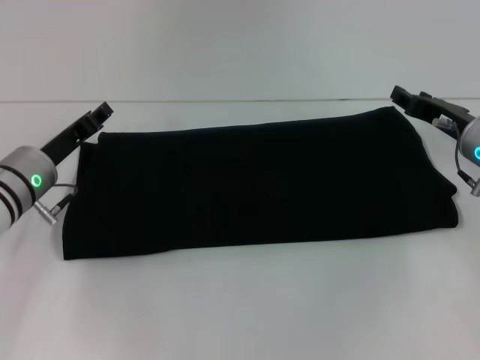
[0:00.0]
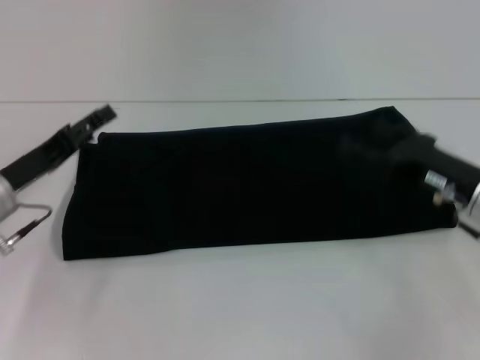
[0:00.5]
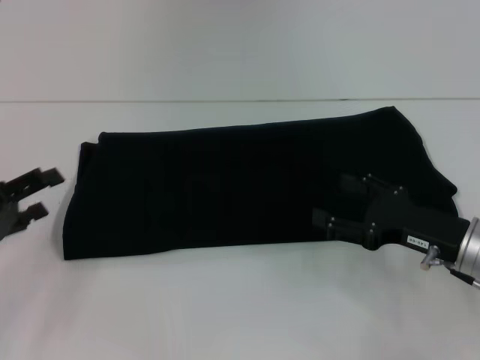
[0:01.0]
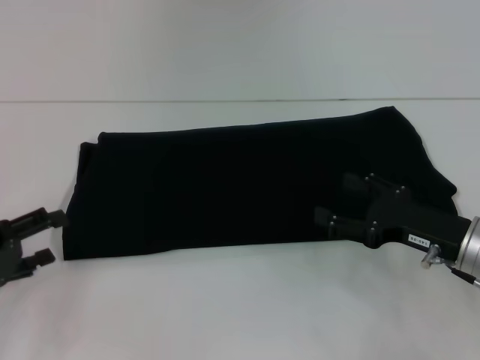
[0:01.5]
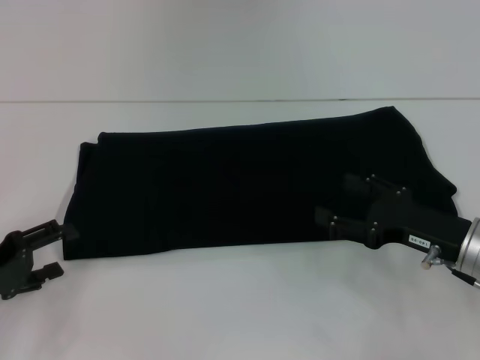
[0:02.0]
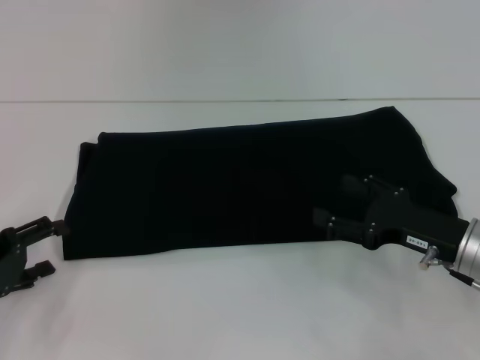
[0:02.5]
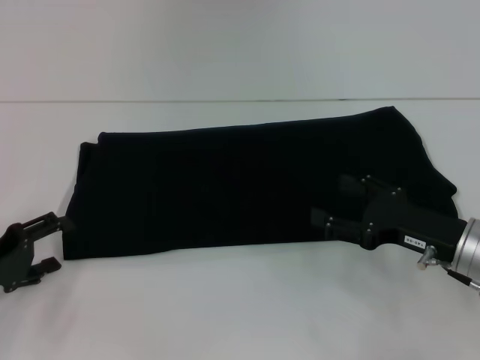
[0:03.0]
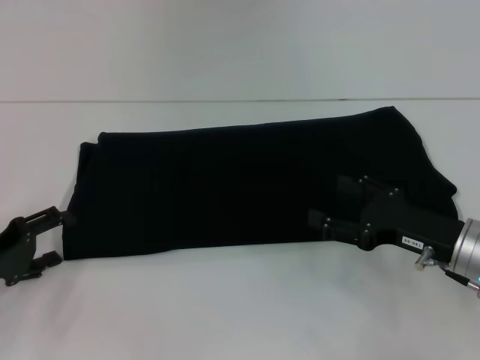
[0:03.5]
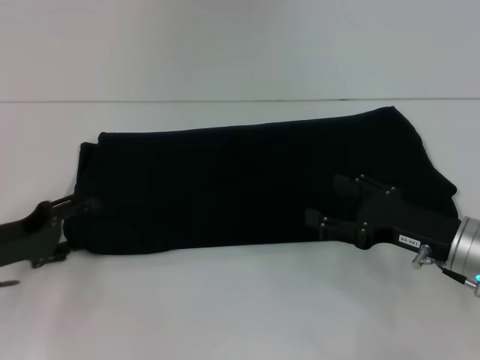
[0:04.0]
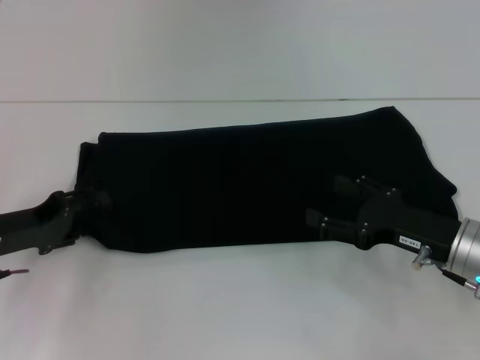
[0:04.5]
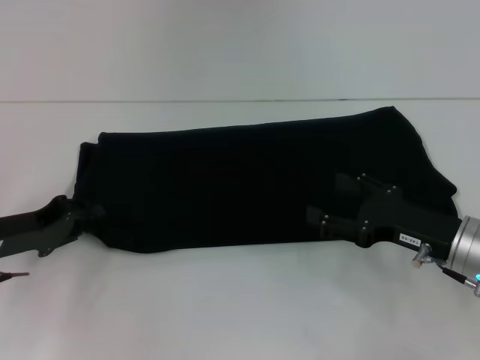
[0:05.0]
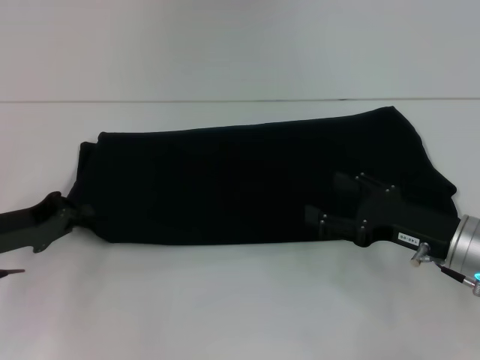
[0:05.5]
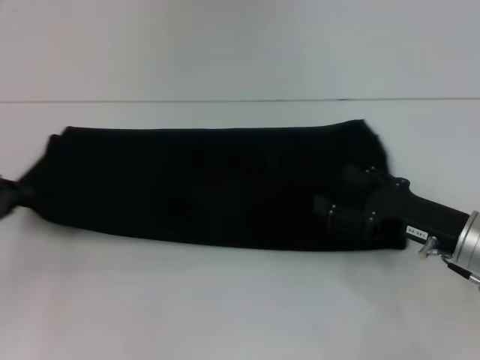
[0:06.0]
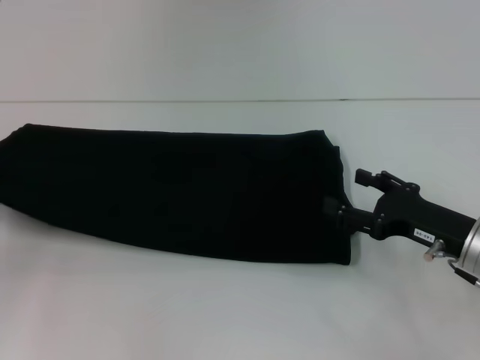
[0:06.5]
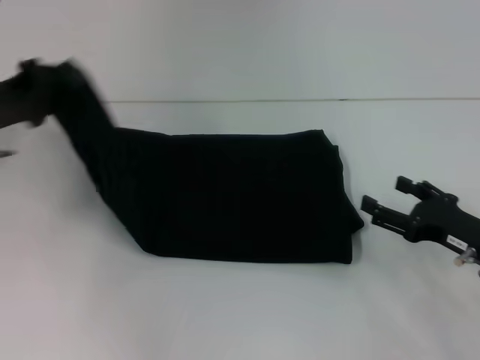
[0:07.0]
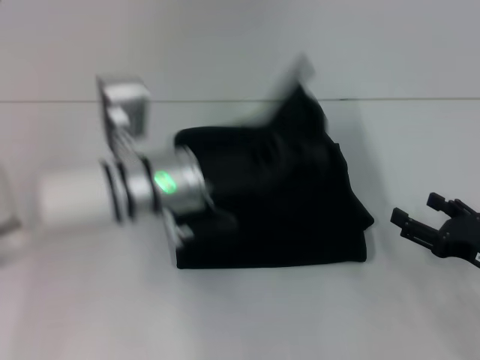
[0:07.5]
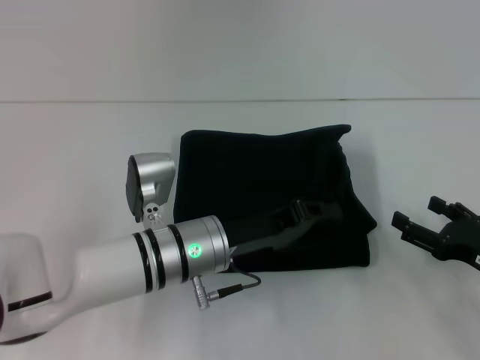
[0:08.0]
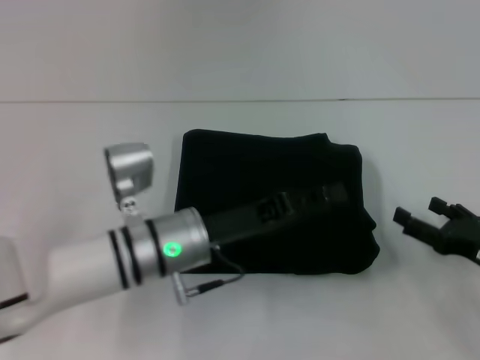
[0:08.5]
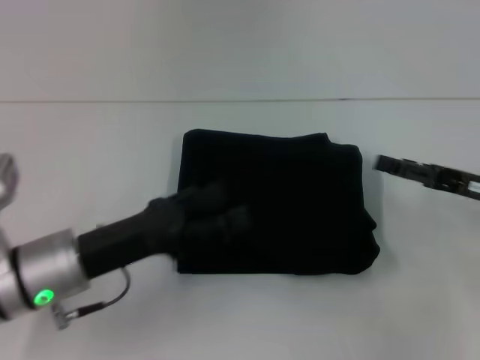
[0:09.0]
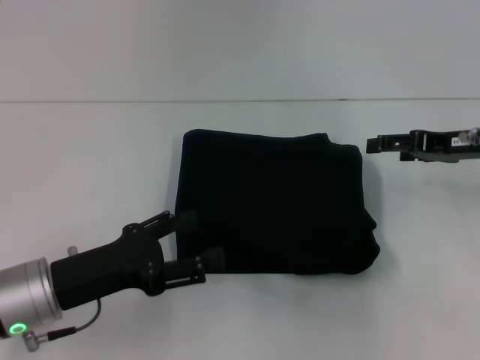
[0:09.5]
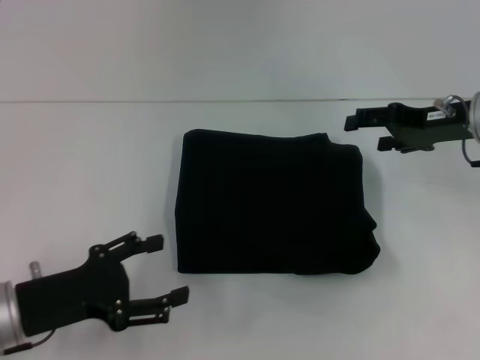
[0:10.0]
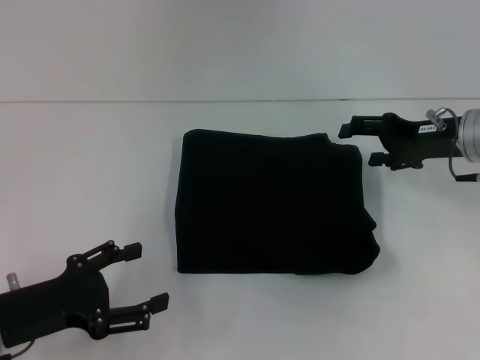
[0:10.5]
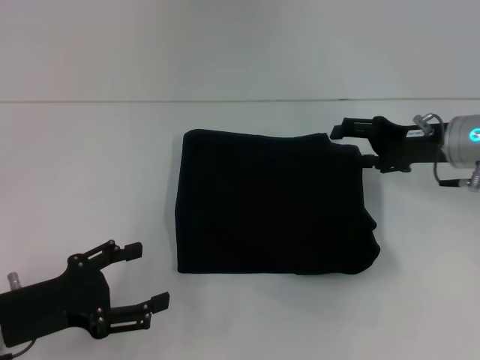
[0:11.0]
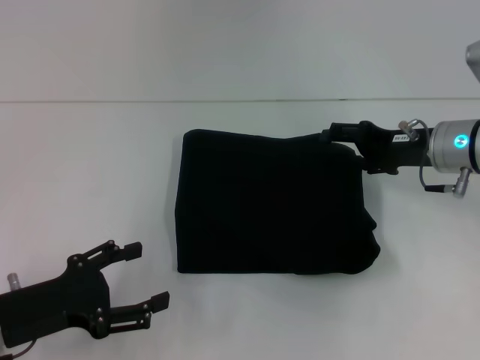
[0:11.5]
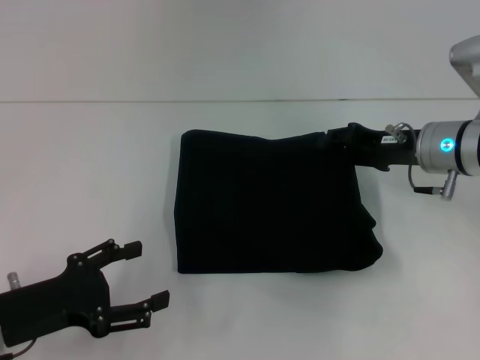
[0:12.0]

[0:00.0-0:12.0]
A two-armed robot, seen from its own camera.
Step, 0:00.0 to 0:08.0: Fold the clothes with your left hand.
0:00.0 to 0:02.0: The left gripper heads backward and to the left, covering about 15 cm, and opens up; the right gripper travels backward by about 10 cm, and opens its fingers.
0:02.0 to 0:04.0: The left gripper shifts by roughly 5 cm.
0:04.0 to 0:06.0: The left gripper moves about 5 cm, and closes.
0:06.0 to 0:08.0: The left gripper moves to the right, approximately 30 cm, while the right gripper goes roughly 5 cm to the right.
0:08.0 to 0:10.0: The right gripper shifts some 20 cm forward and upward. The left gripper is displaced to the left and backward by about 20 cm, and opens up.
0:10.0 to 0:12.0: The right gripper moves approximately 5 cm.

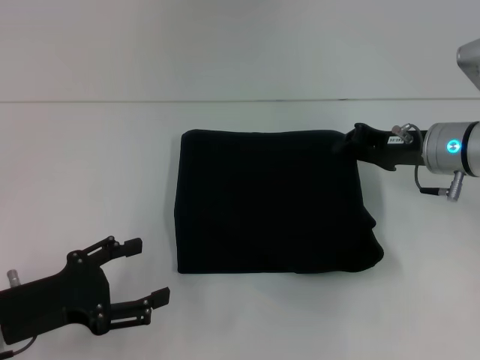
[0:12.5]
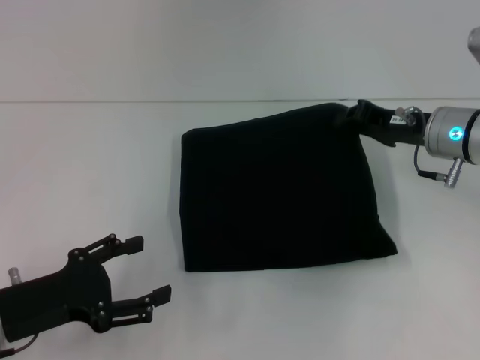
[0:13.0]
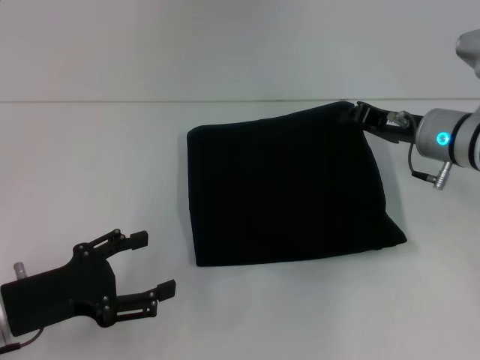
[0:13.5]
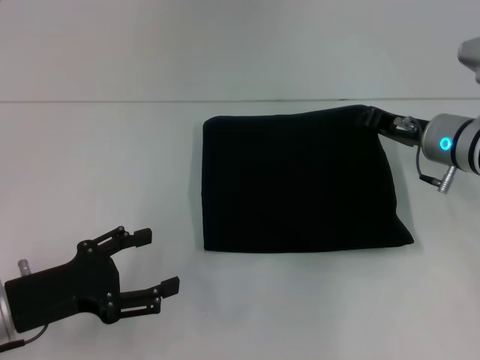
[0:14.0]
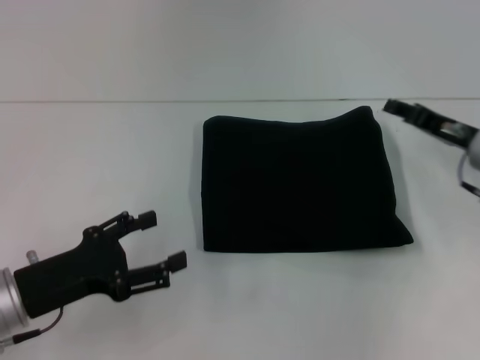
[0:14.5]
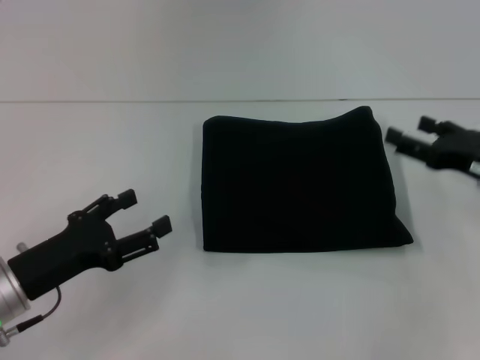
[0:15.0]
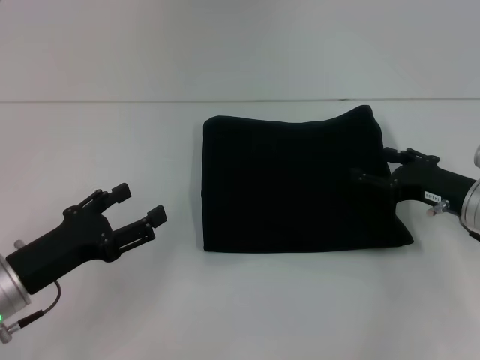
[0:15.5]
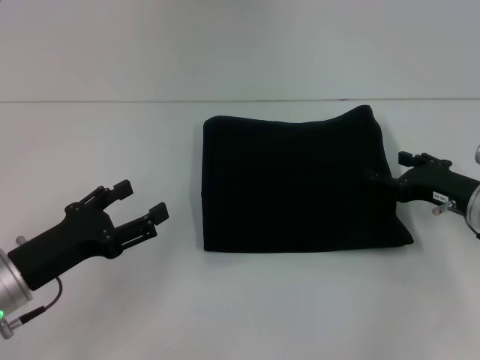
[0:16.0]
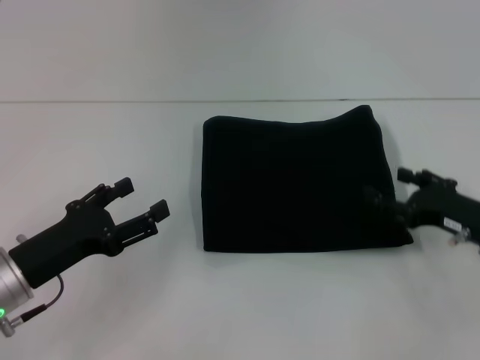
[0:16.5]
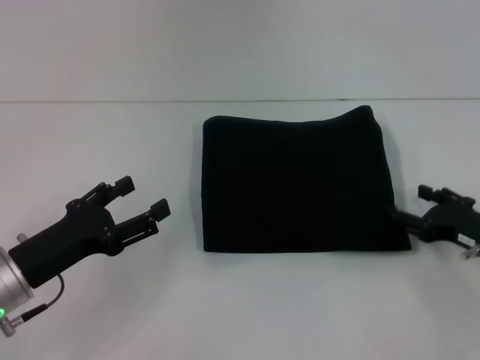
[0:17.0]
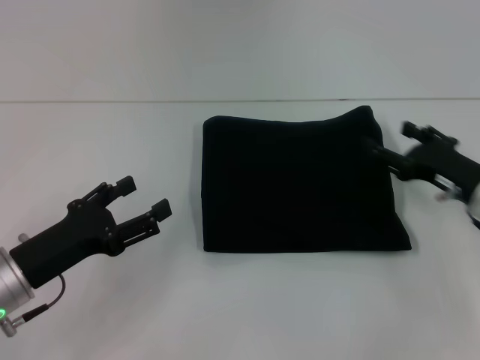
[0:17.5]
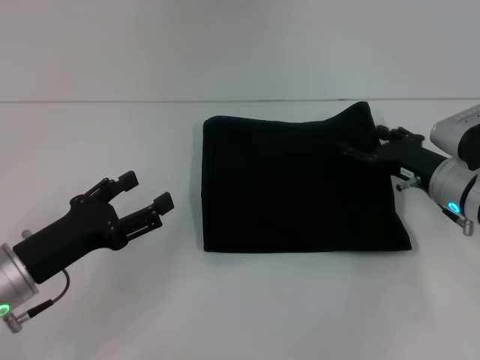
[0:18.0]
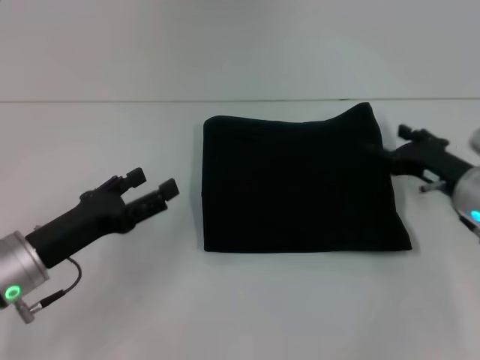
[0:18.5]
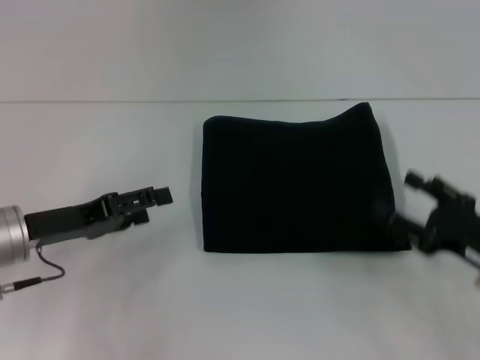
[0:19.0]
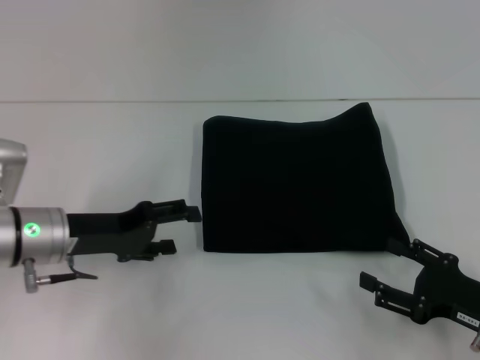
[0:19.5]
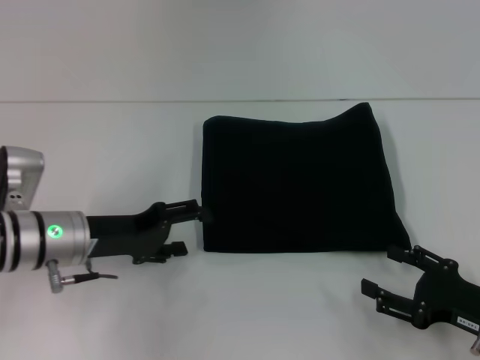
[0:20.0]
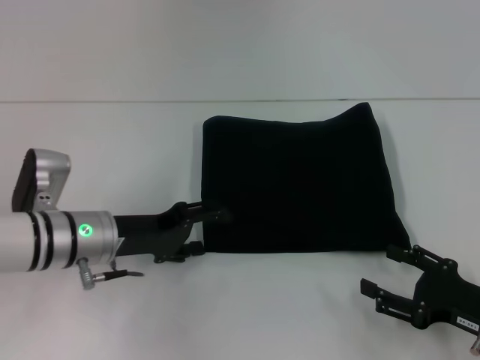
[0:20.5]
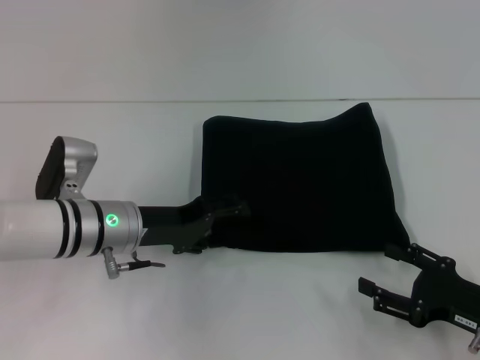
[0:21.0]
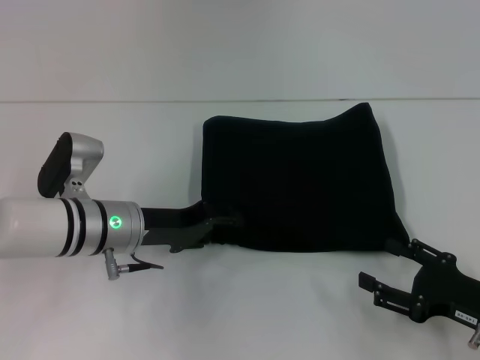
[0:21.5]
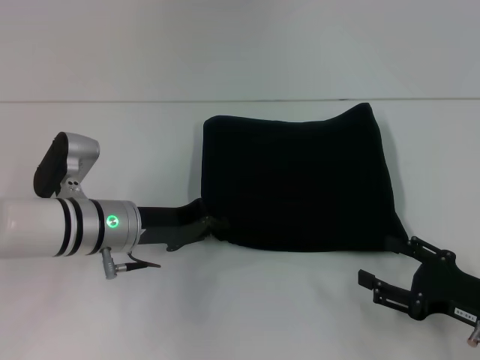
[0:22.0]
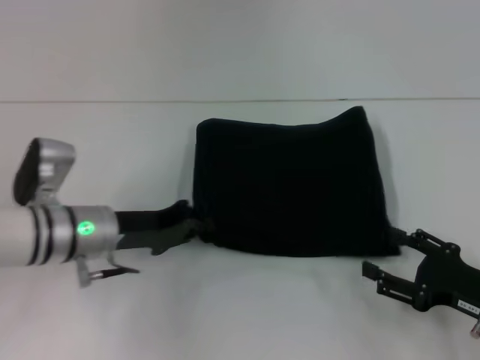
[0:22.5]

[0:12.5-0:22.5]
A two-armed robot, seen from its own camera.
0:12.5 to 0:14.5: The right gripper shifts by some 5 cm.
0:14.5 to 0:16.5: The right gripper is displaced backward by some 10 cm, and opens up.
0:16.5 to 0:18.5: The right gripper shifts by about 5 cm.
0:18.5 to 0:20.5: The left gripper travels forward and to the right by approximately 10 cm, while the right gripper moves backward, roughly 15 cm.
0:20.5 to 0:22.5: The left gripper closes its fingers.

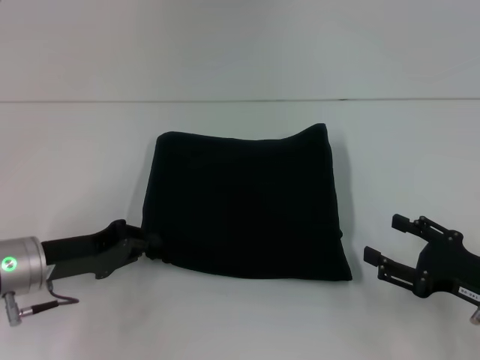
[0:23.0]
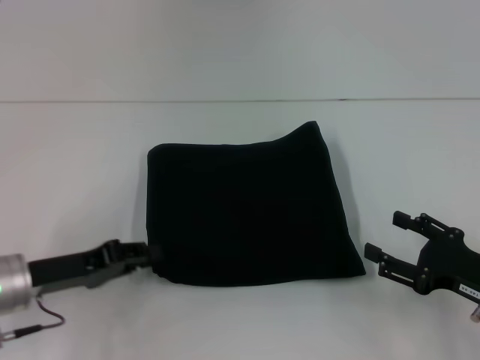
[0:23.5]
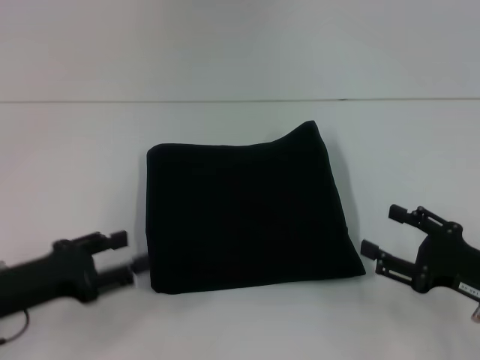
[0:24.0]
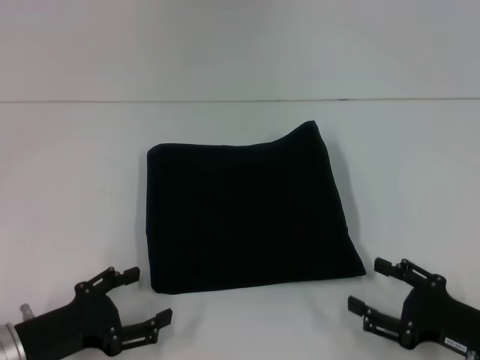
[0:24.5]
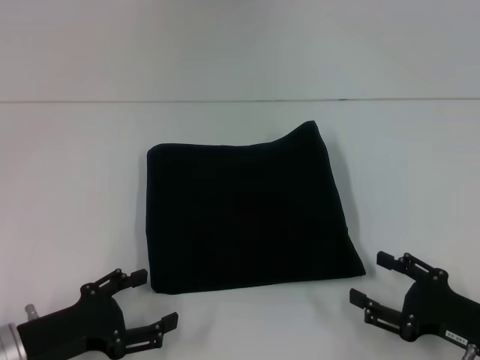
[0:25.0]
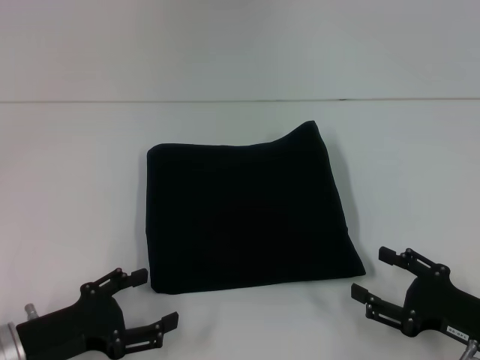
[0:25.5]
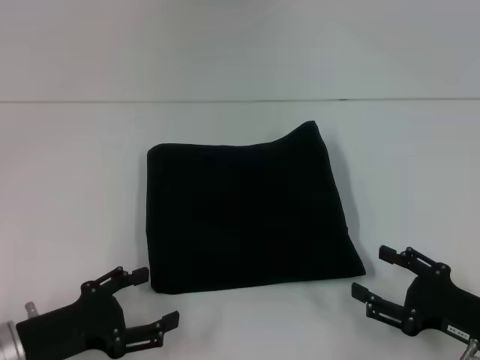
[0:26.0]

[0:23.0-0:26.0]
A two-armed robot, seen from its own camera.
0:23.0 to 0:24.5: The left gripper heads backward, covering about 10 cm, and opens its fingers.
0:24.5 to 0:26.0: The two grippers keep their place.
